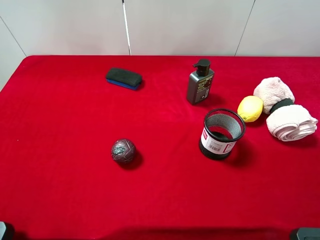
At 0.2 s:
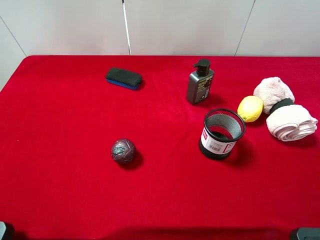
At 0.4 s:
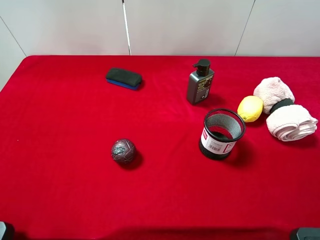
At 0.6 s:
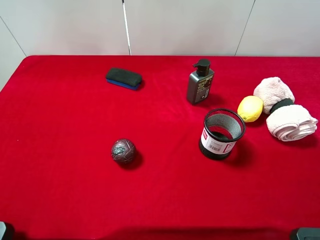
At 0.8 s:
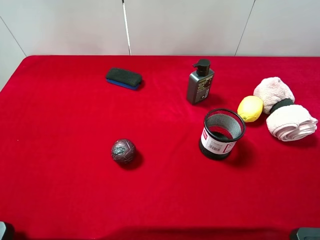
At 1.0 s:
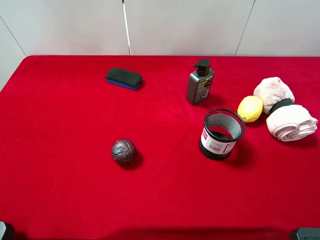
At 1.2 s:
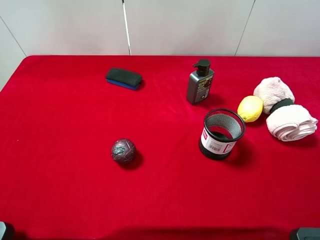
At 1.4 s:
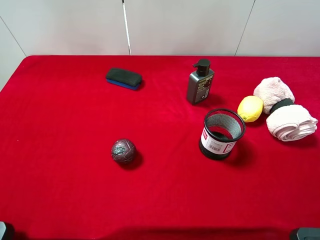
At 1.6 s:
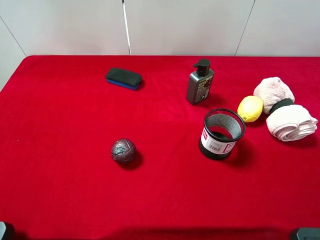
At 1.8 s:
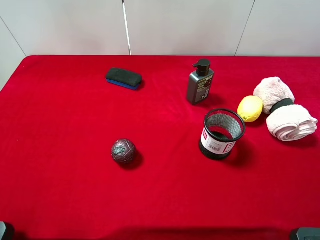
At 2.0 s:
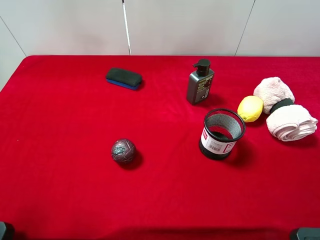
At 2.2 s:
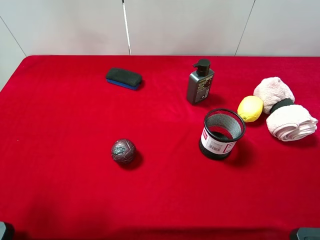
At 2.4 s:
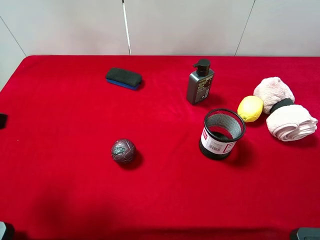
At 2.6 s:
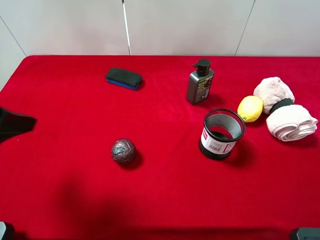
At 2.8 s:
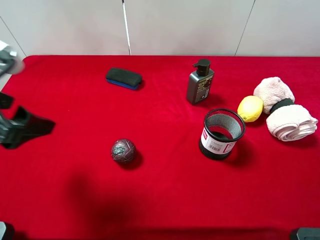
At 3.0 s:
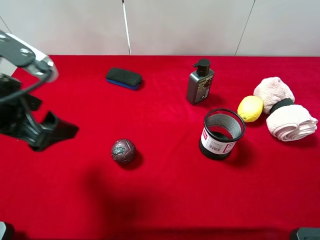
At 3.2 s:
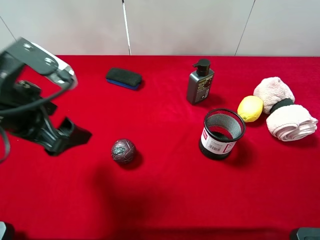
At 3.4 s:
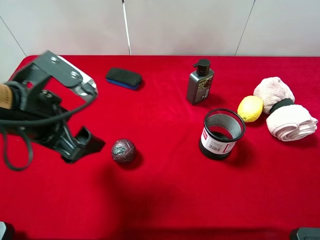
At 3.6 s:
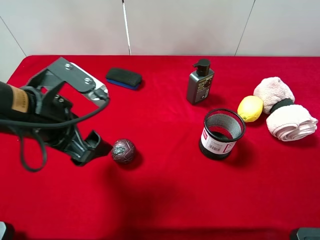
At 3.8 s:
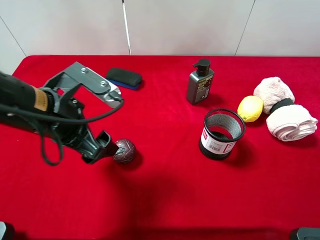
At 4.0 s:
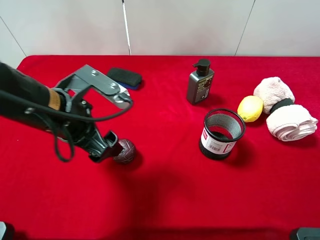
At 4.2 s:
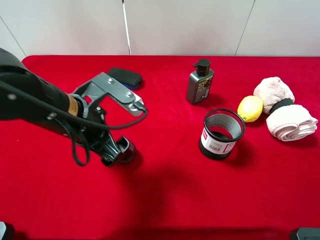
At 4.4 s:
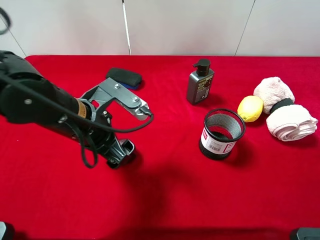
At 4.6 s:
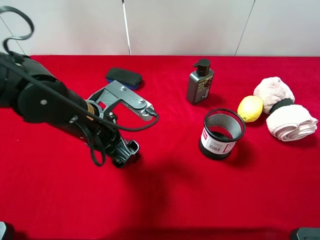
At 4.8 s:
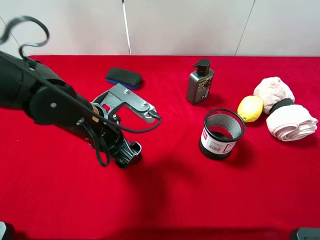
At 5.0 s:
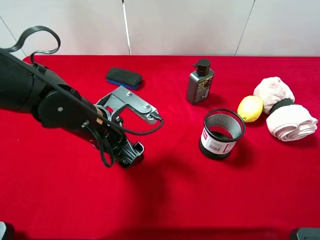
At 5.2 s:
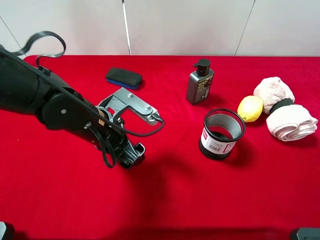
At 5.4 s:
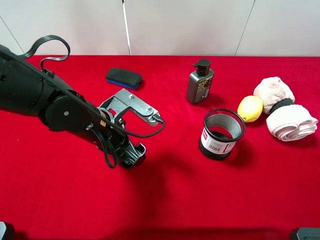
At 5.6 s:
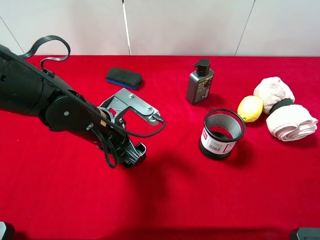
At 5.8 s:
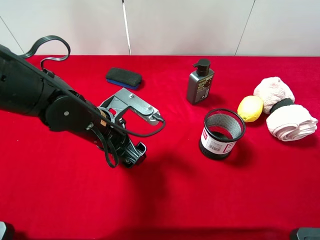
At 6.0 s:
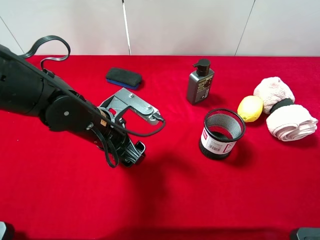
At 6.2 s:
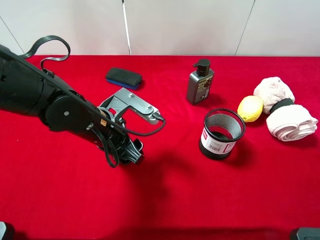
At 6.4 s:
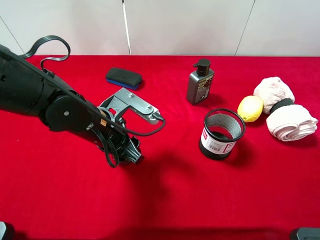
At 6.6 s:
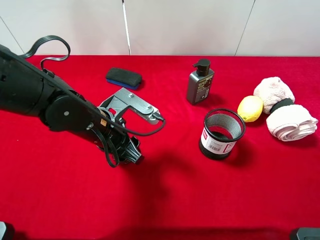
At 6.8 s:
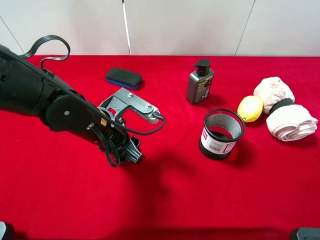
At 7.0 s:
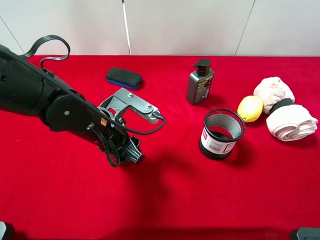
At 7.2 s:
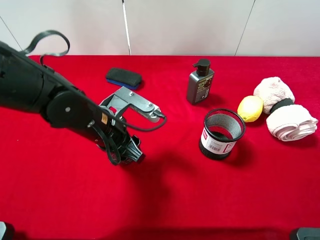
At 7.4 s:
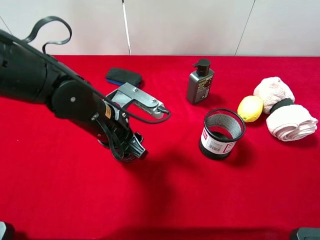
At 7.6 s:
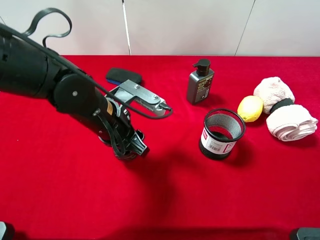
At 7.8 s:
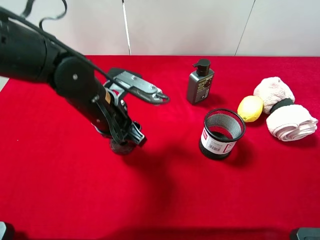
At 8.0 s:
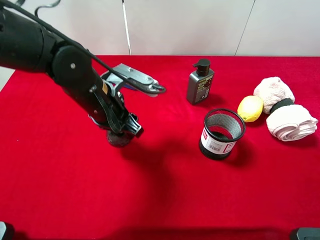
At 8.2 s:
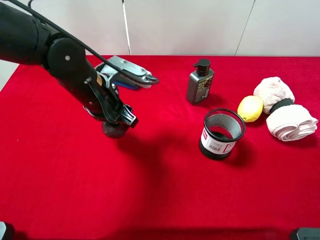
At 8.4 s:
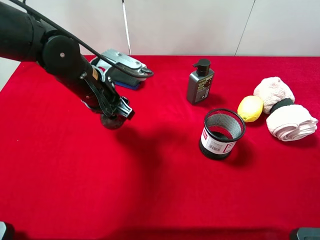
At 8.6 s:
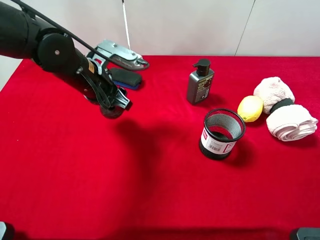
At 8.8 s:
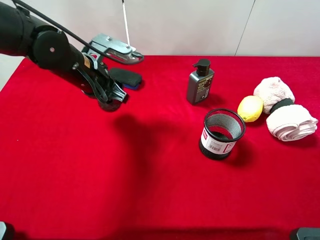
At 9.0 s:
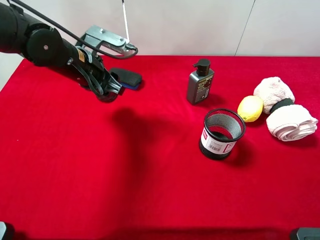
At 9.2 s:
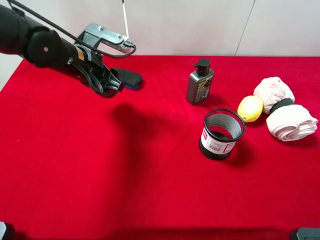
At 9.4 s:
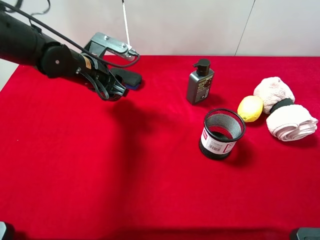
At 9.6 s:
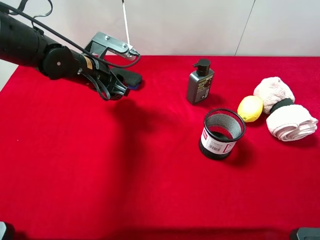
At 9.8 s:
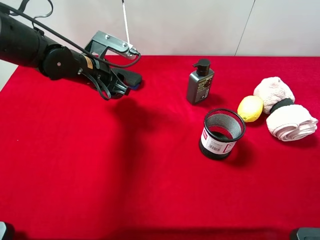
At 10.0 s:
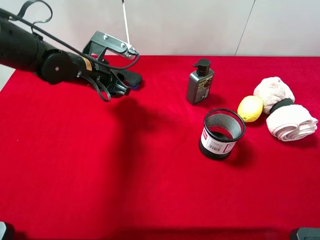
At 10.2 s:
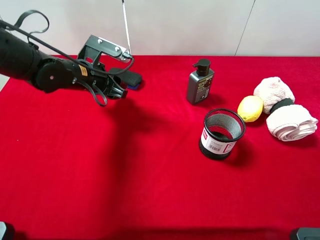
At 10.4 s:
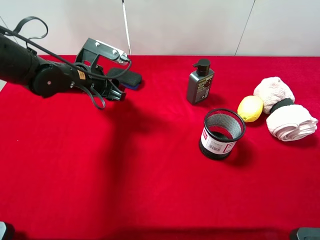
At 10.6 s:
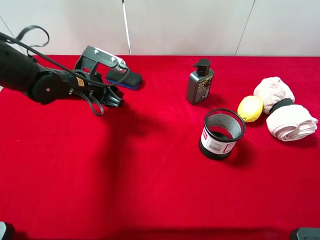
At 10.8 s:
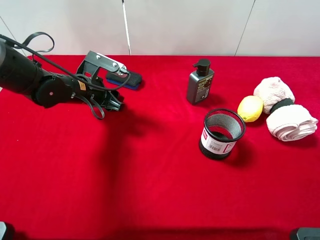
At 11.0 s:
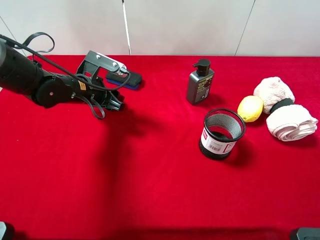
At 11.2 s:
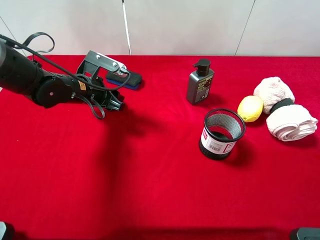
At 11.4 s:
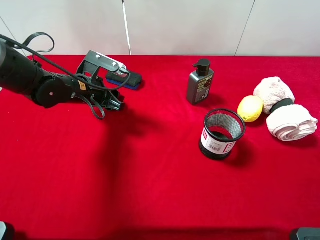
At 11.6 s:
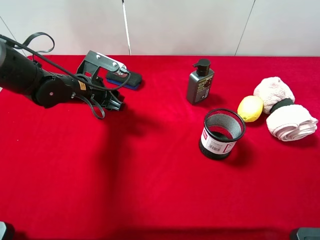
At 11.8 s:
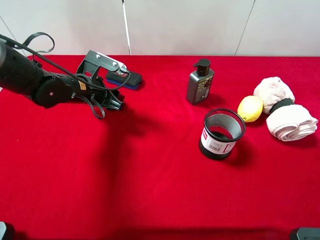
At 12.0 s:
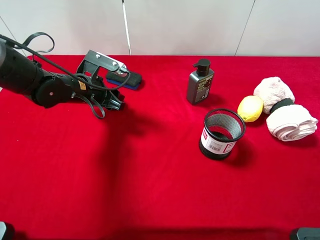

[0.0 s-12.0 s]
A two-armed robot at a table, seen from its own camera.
Task of the whole recording: the gripper move the object.
Step, 0.0 to 6.6 s: Grasp the mangosteen with the left gripper.
0.0 to 1.6 s: The two grippers keep their place.
1.6 to 3.0 s: The left gripper goes approximately 20 cm forward and to the right.
3.0 to 4.4 s: The left gripper shifts about 15 cm to the right and downward.
4.4 to 6.0 s: The grippers move only a little.
6.0 to 7.6 s: The left gripper closes its fingers.
7.6 to 9.0 s: The left gripper is displaced forward and to the left by some 10 cm.
9.0 to 10.4 s: There are only small adjustments of the grippers.
10.4 to 12.0 s: There are only small adjustments of the grippers.

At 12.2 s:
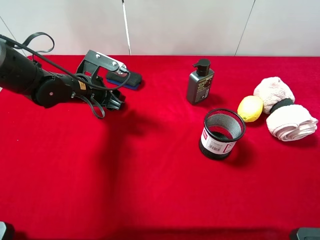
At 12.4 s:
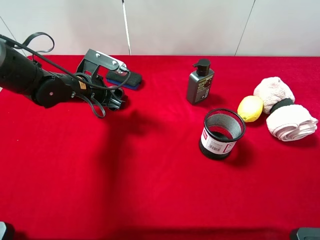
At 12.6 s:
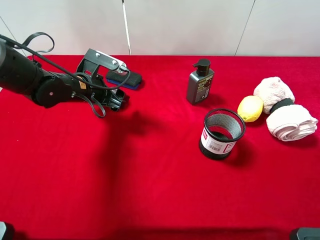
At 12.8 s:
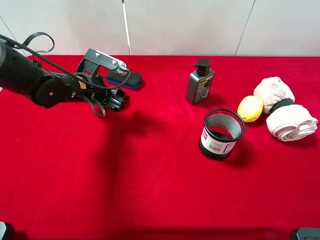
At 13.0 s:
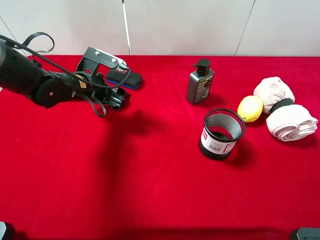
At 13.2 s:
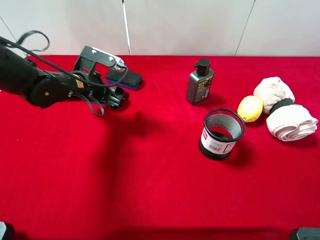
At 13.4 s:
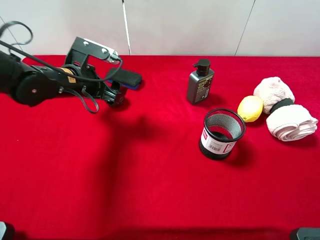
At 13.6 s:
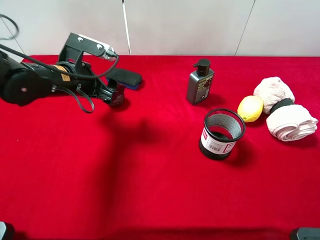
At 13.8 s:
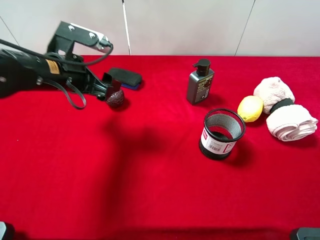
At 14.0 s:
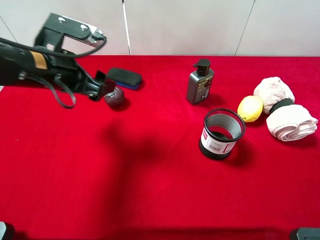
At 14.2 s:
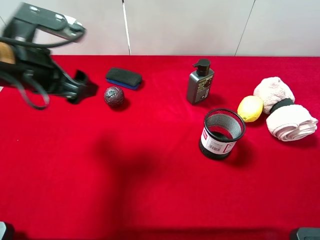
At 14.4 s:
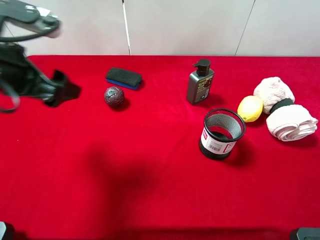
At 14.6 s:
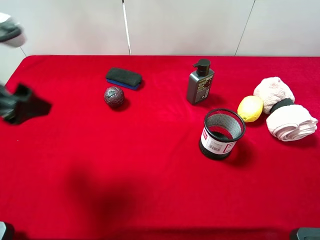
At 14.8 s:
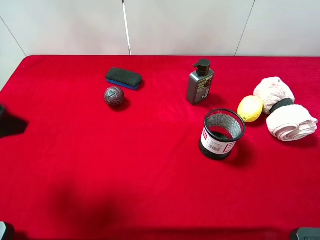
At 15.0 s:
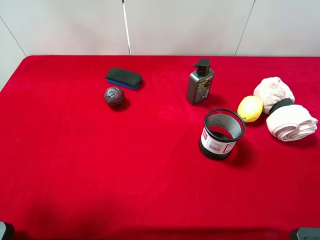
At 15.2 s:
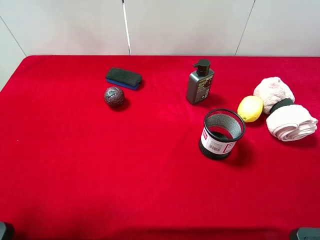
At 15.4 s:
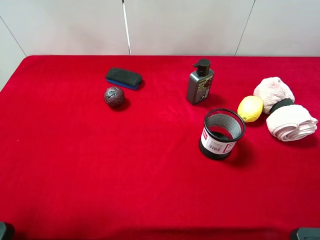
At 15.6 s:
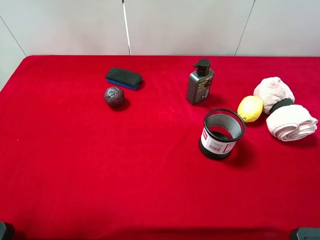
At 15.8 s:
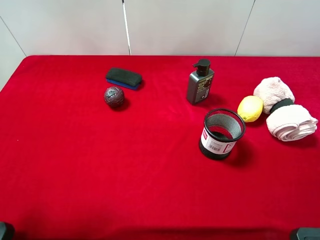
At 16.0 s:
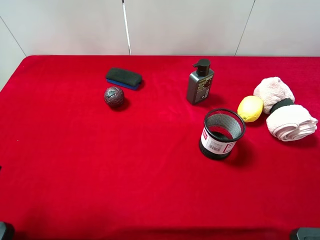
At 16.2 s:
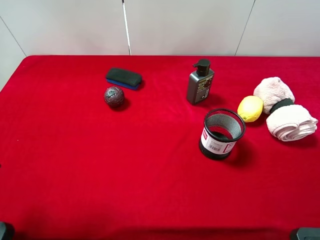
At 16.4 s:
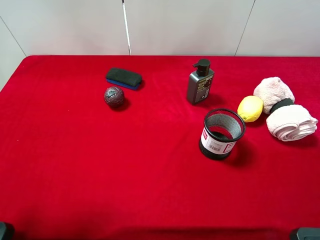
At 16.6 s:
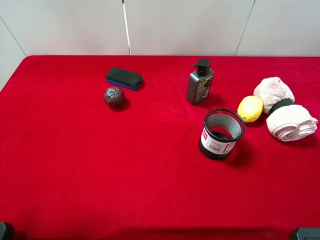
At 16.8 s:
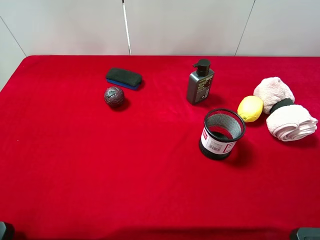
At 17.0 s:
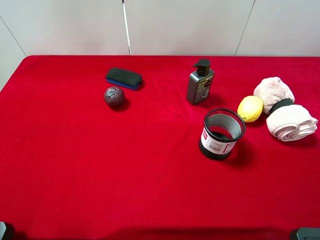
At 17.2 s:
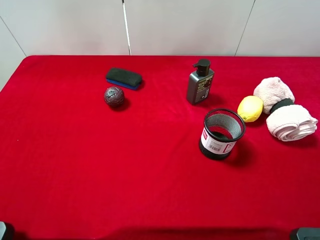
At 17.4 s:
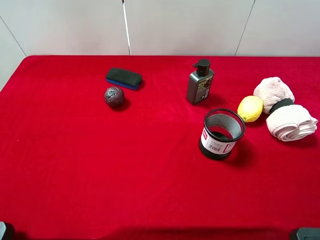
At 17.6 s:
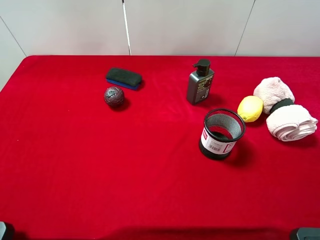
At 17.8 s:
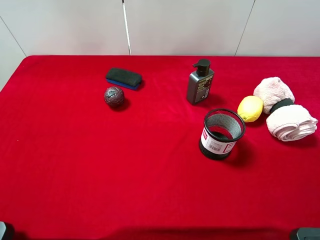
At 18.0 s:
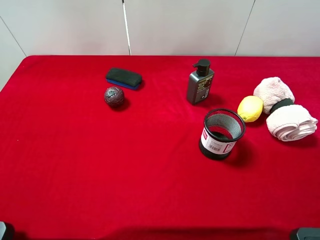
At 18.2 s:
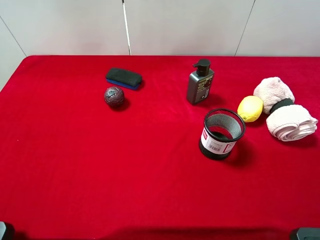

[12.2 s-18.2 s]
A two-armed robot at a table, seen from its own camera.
Task of the whole recording: the gripper move the object.
12.2 to 13.8 s: The left gripper goes about 10 cm upward, and opens.
13.8 to 15.2 s: The left gripper moves backward, to the left and upward, roughly 25 cm.
